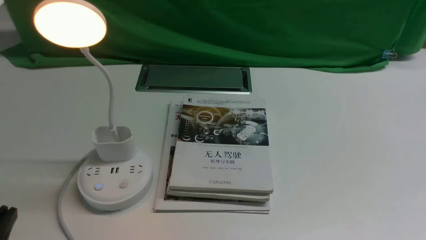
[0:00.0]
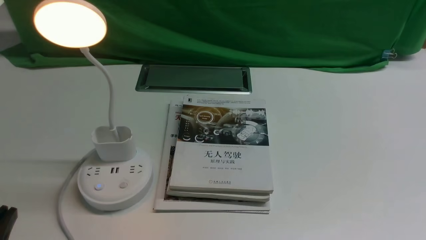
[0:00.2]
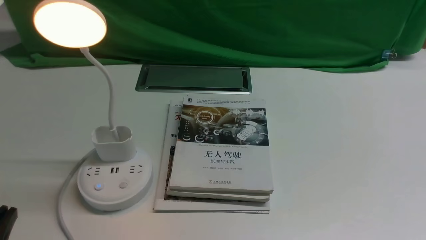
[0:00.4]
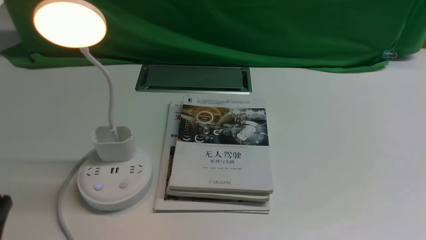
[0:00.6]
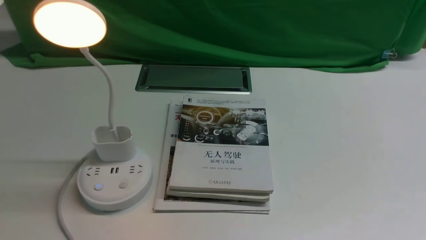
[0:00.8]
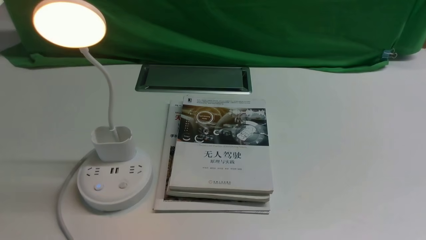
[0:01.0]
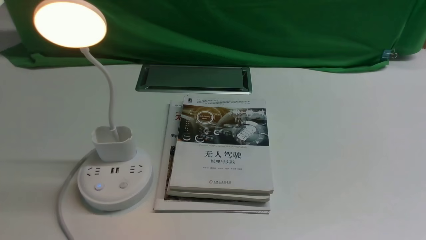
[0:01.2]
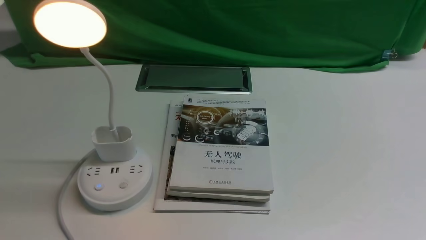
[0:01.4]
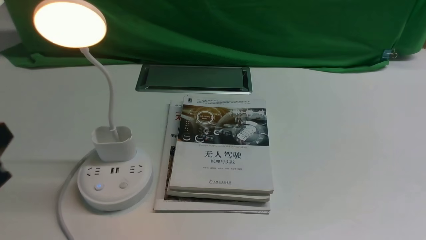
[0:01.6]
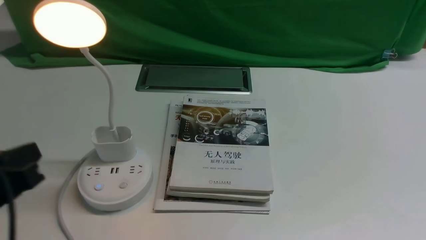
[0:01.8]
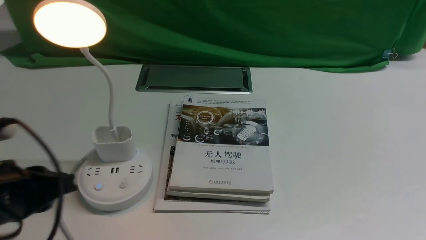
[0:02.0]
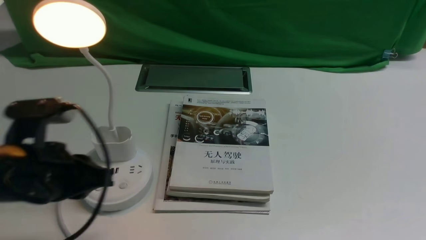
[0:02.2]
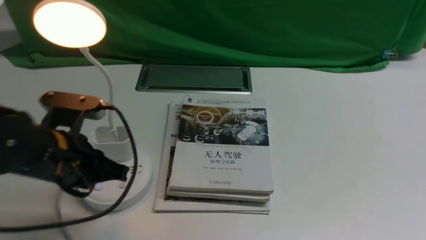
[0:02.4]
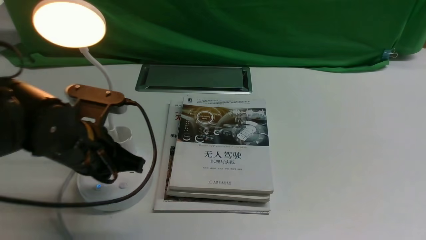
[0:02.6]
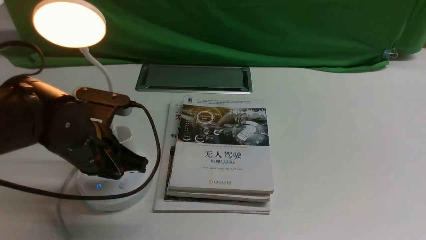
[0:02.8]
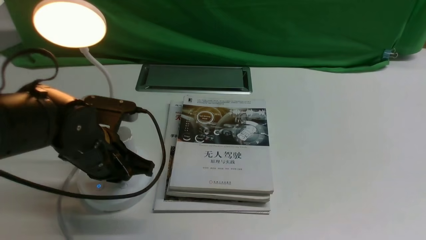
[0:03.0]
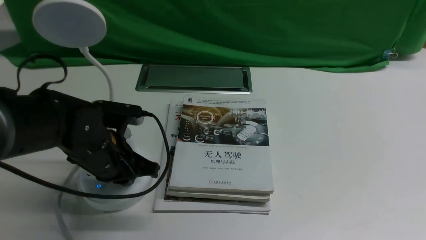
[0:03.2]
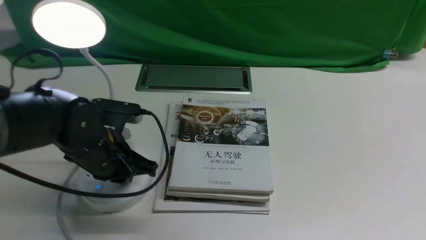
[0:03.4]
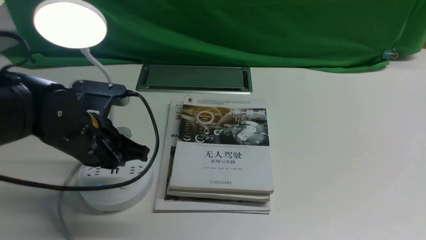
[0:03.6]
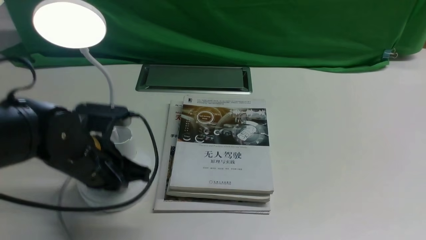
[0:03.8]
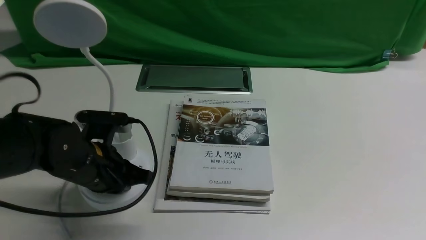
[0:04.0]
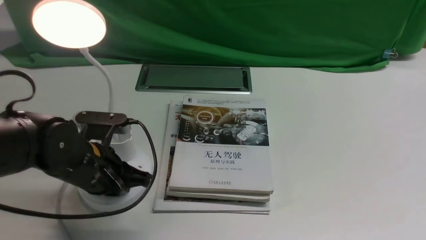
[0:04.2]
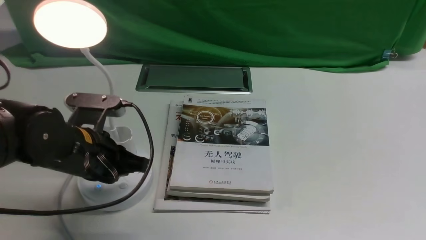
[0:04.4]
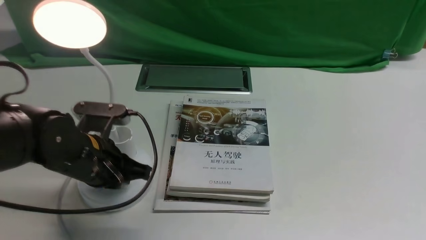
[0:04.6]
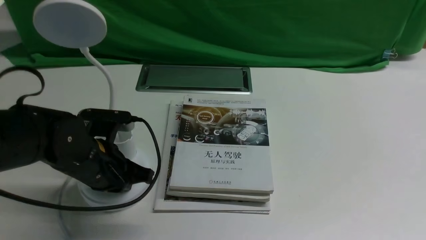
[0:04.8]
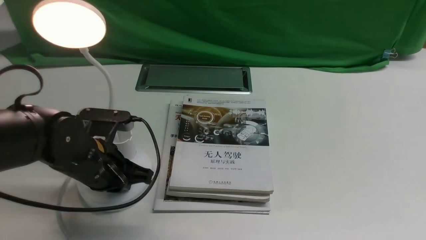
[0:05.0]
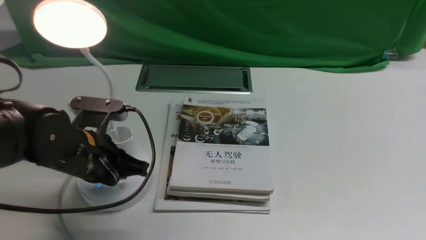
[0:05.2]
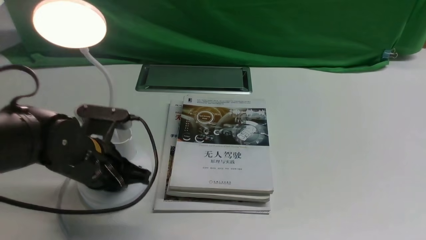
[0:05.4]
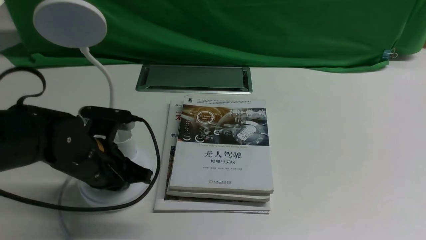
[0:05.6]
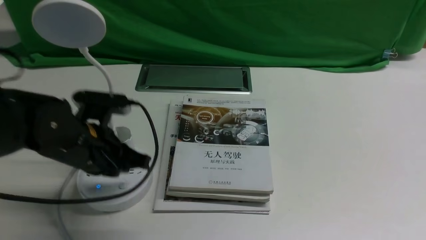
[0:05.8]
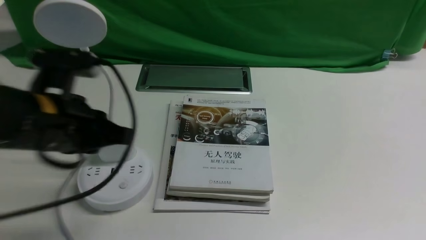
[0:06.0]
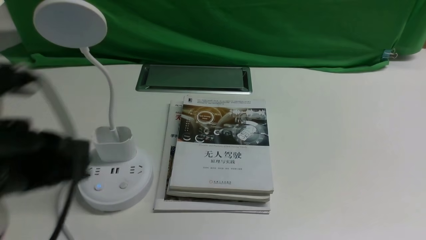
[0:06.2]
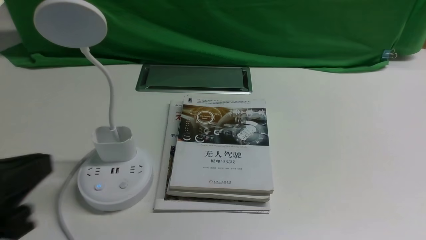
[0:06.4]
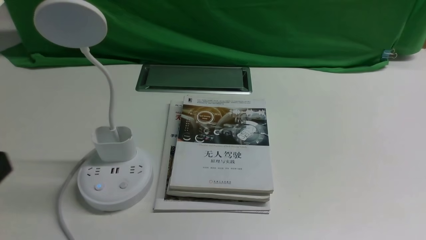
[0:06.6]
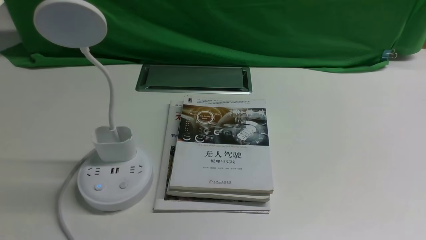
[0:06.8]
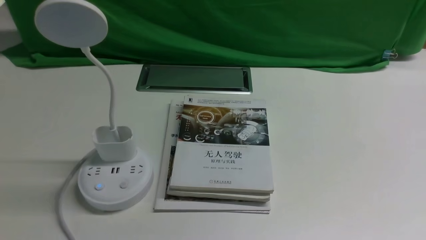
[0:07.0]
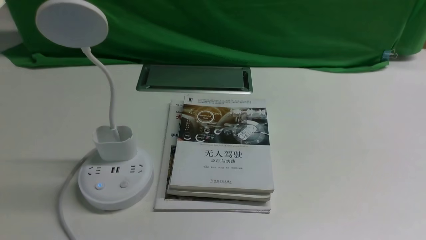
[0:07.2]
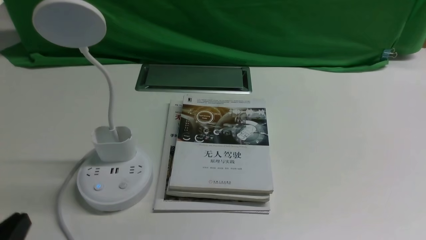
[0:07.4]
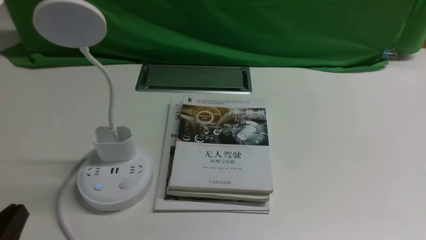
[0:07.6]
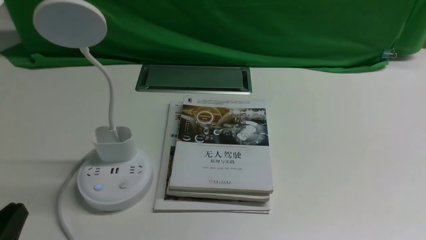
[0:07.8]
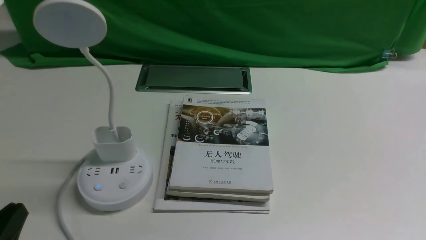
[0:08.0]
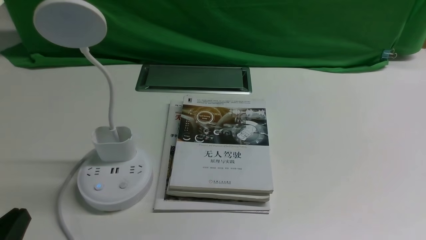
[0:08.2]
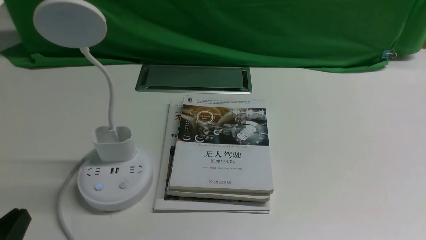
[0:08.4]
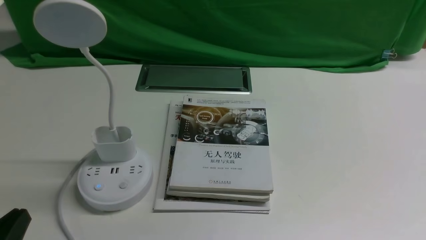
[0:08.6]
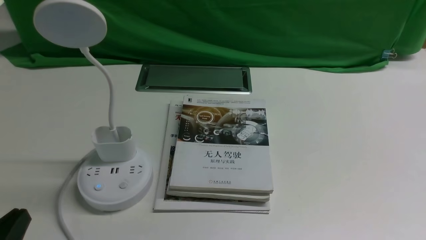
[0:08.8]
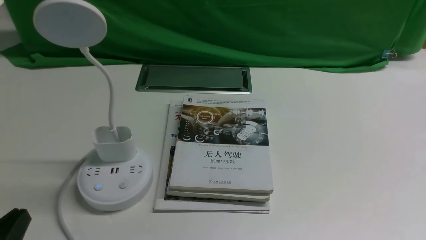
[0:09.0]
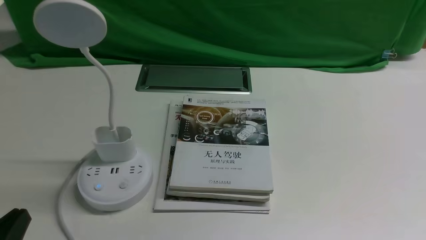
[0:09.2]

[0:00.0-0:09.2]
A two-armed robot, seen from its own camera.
Task of the whole recording: turn off the desk lamp on the white desktop by hand.
Step, 0:00.0 to 0:05.6: use the left arm to press the button switch on the lamp holder.
0:00.0 to 0:01.6: The left gripper is displaced upward by approximately 10 cm.
0:01.6 to 0:03.0: The left gripper shifts approximately 20 cm forward, downward and to the right.
0:03.0 to 0:04.6: The grippers stay close to where they were, moving slightly.
0:04.6 to 0:06.2: The left gripper is displaced upward and backward by approximately 15 cm.
0:06.2 to 0:07.6: The left gripper heads downward and backward, covering roughly 15 cm.
0:07.6 to 0:09.2: Neither gripper changes place.

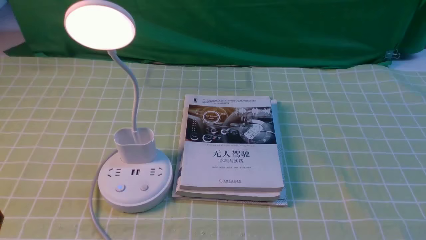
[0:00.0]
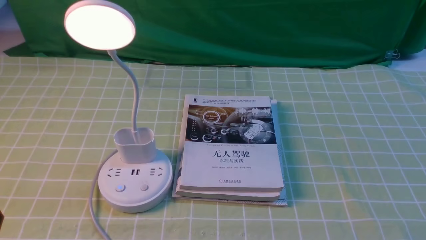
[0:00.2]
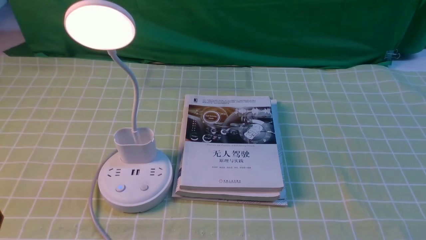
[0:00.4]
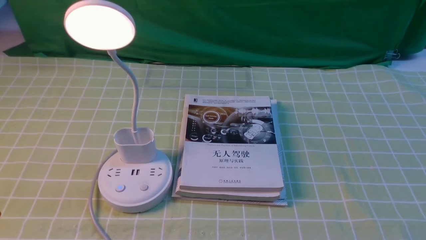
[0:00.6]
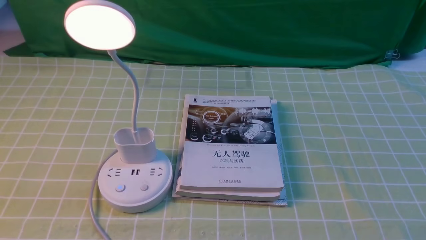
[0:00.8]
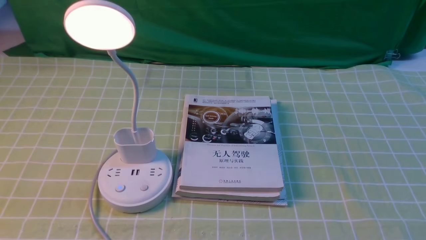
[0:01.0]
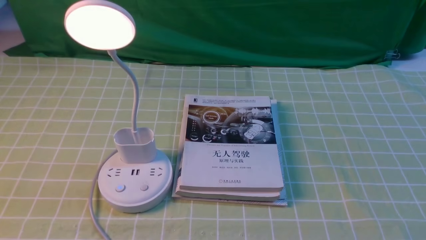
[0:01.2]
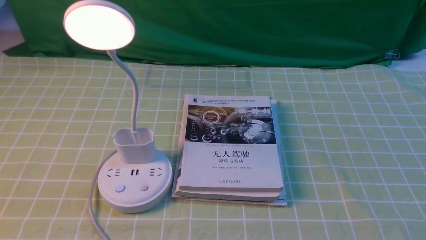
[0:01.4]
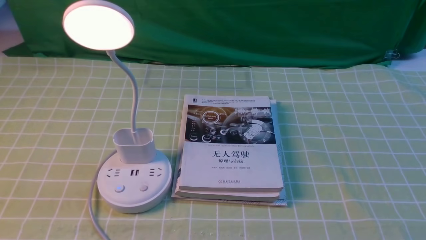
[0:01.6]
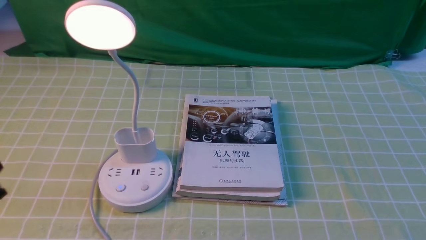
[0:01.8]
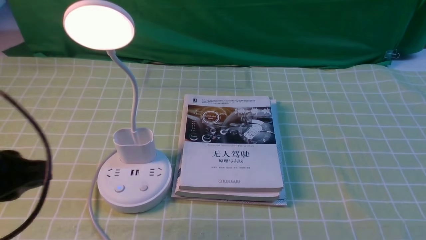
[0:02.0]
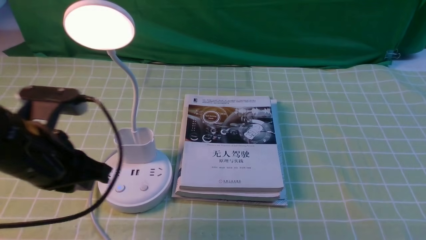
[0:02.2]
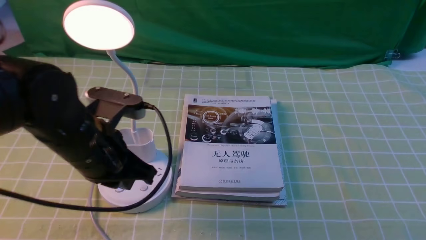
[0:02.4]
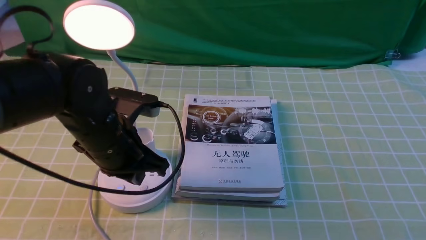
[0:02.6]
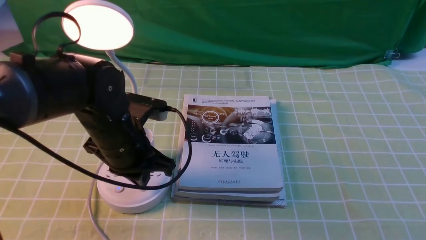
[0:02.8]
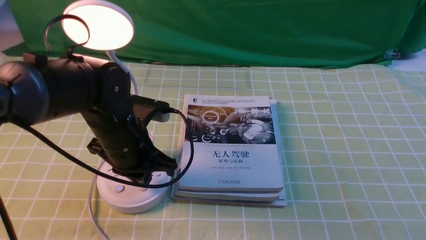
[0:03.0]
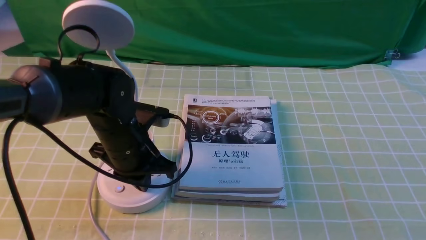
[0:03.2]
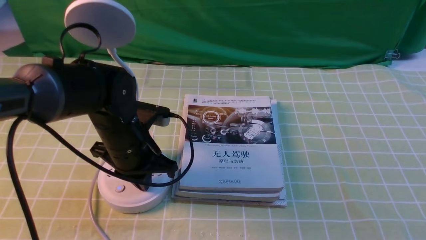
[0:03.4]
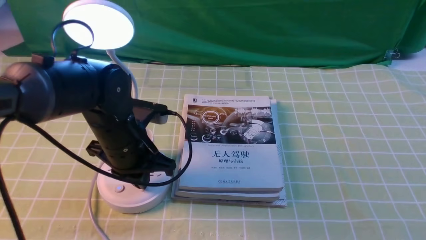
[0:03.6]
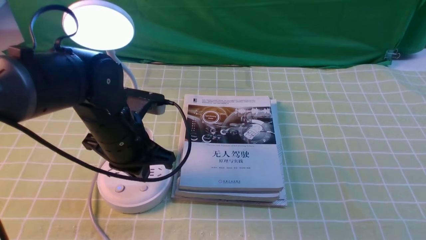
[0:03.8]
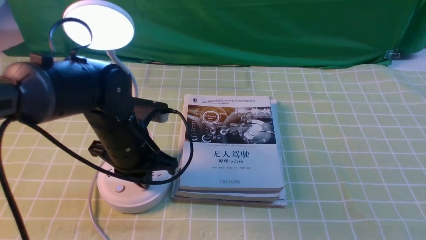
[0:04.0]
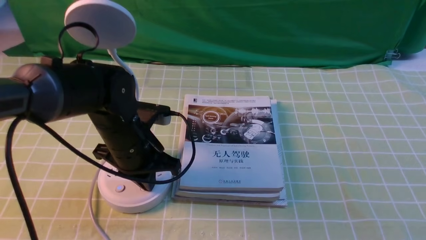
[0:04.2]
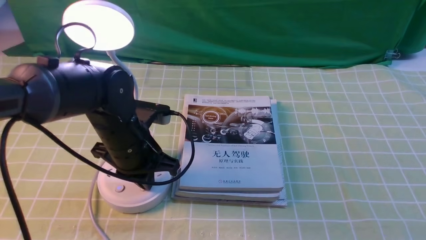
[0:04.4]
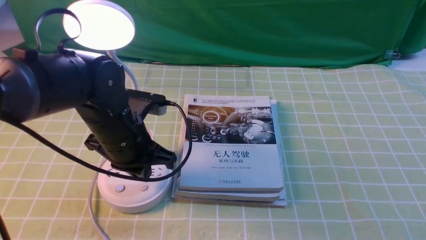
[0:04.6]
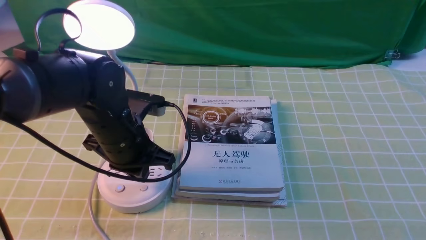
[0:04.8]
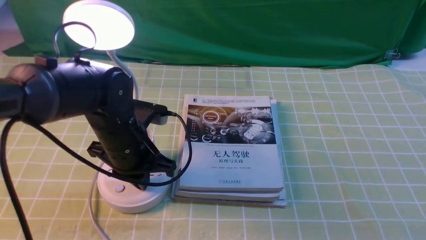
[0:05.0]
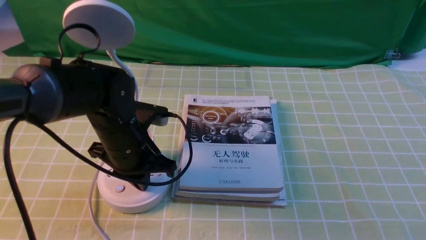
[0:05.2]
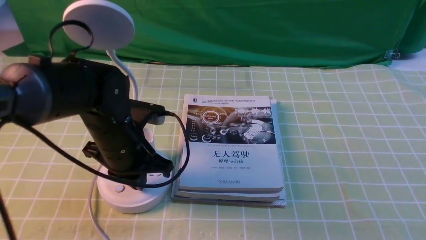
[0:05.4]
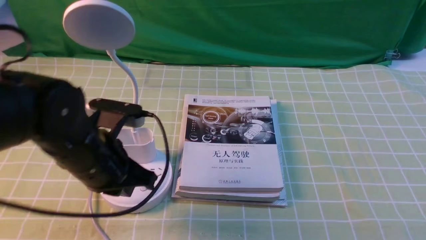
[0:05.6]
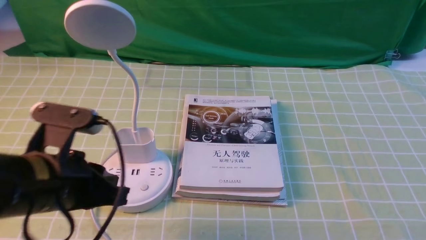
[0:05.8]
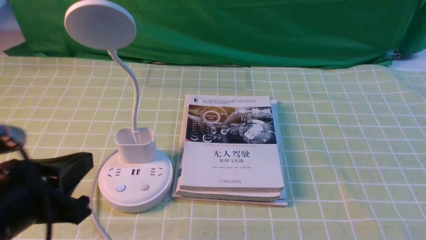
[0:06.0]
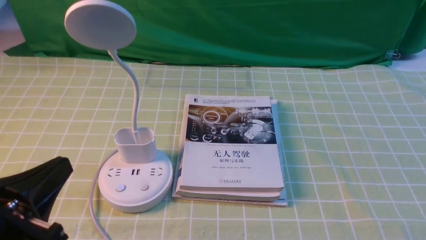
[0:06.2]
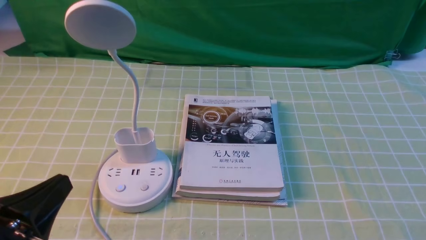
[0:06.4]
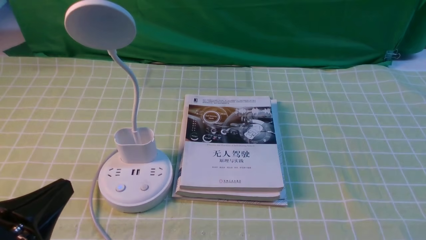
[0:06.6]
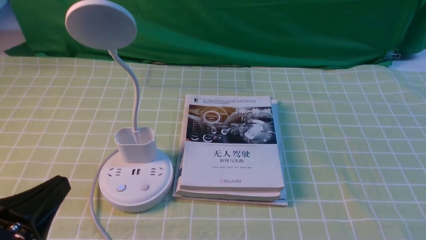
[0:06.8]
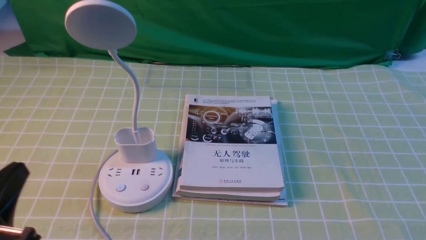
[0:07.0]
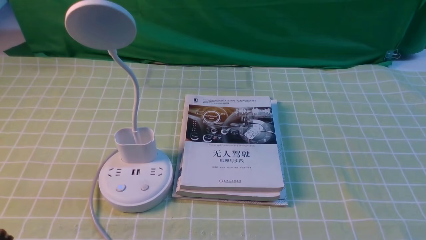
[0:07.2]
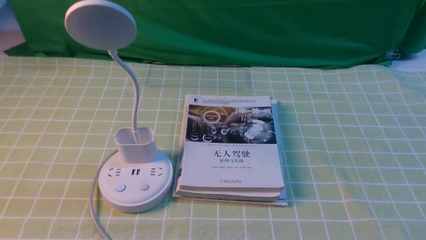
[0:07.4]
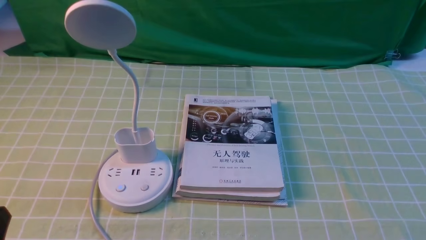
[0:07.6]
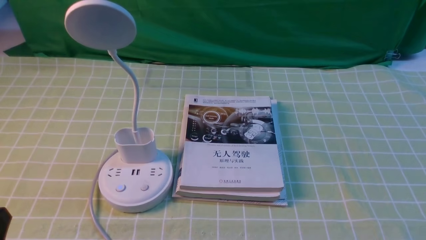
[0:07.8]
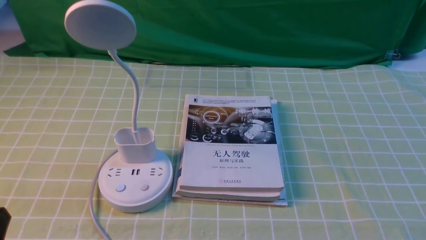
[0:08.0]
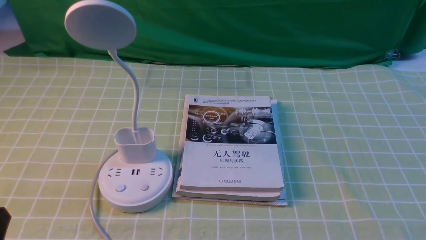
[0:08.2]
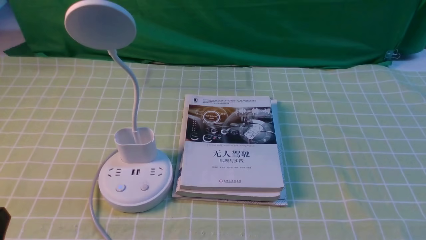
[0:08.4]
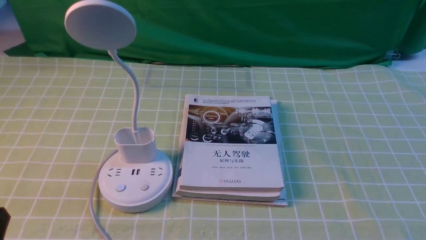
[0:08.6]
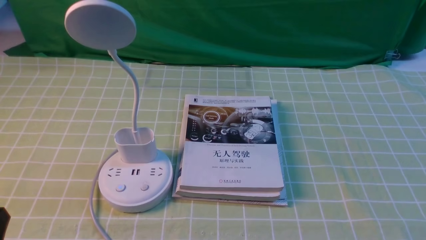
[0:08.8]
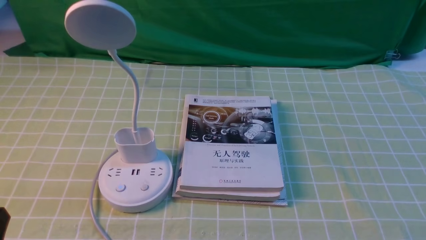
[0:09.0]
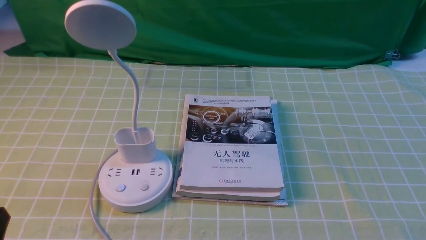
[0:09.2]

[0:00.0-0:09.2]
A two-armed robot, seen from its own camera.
Task of the whole recording: turn off the desk lamp on the green coffee tablecloth by hand.
Step, 0:00.0 to 0:05.4: use the left arm to press the button switch on the lamp holder.
0:01.6 to 0:03.0: The left gripper travels forward and to the right by some 25 cm, and closes.
0:03.0 to 0:04.6: The grippers make only small movements.
0:04.6 to 0:06.2: The left gripper heads backward and to the left, covering approximately 20 cm, and opens its fingers.
0:06.2 to 0:07.6: The left gripper is displaced backward and downward by about 10 cm.
0:07.6 to 0:09.2: Neither gripper changes place.
